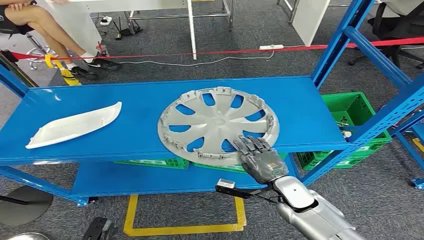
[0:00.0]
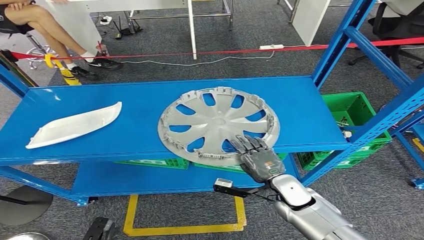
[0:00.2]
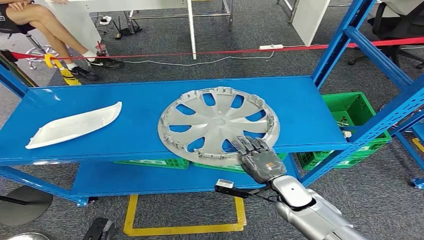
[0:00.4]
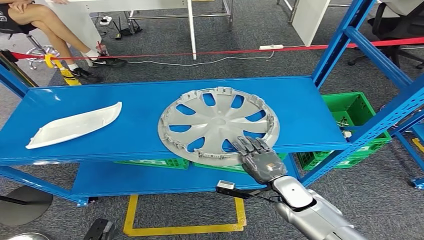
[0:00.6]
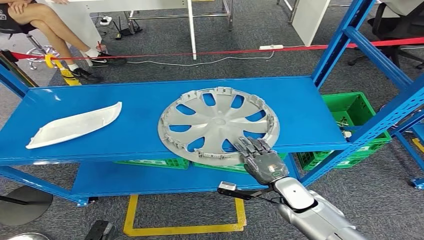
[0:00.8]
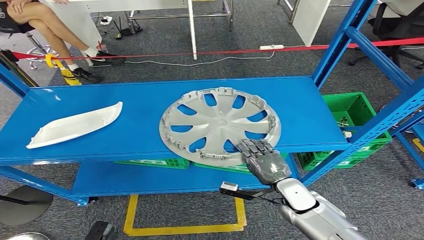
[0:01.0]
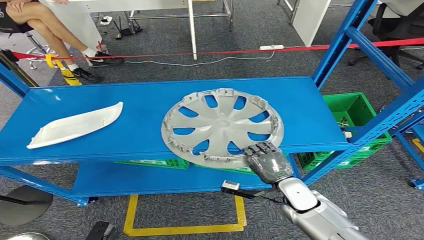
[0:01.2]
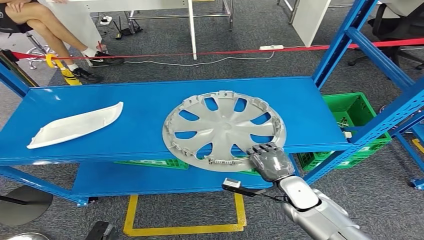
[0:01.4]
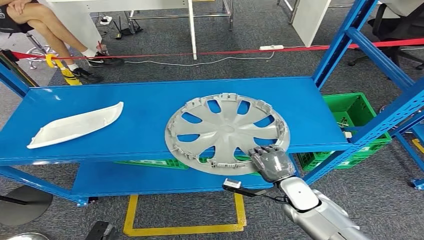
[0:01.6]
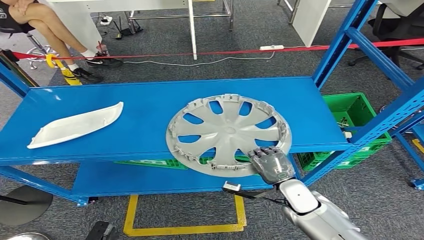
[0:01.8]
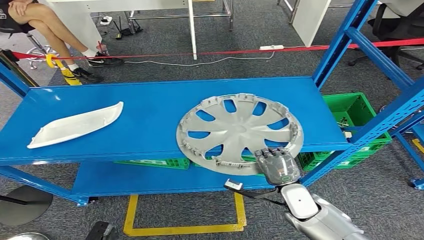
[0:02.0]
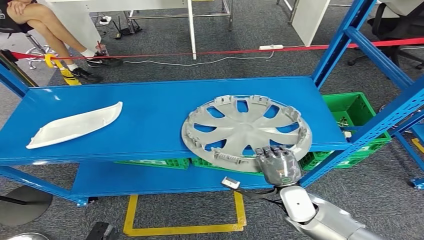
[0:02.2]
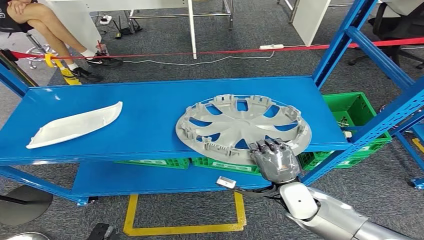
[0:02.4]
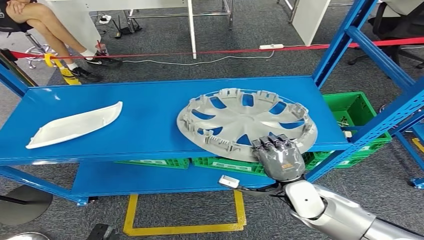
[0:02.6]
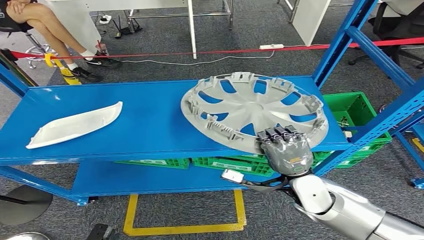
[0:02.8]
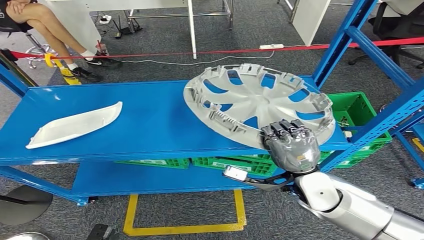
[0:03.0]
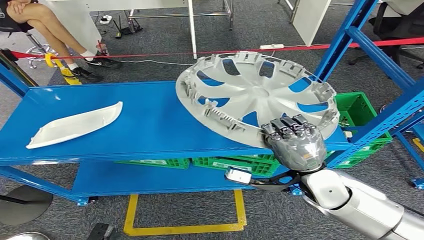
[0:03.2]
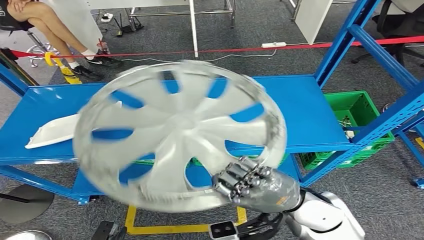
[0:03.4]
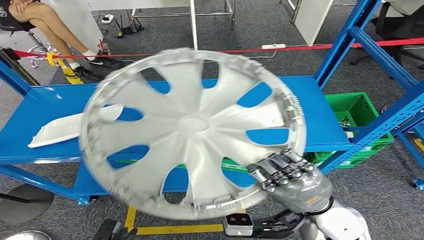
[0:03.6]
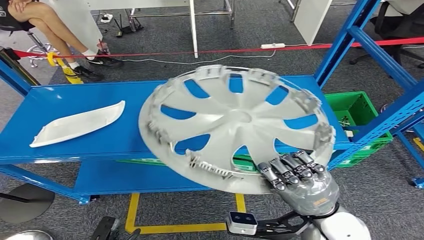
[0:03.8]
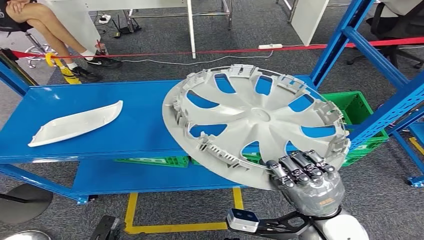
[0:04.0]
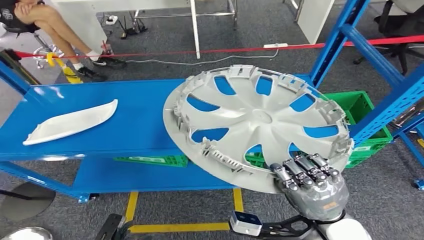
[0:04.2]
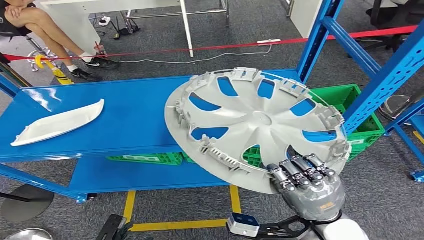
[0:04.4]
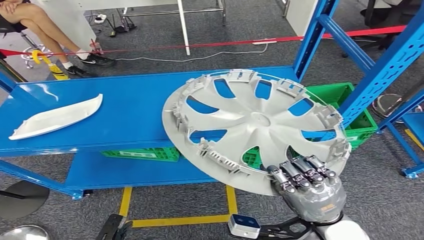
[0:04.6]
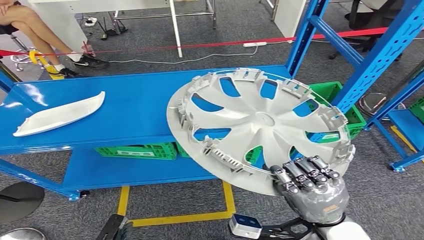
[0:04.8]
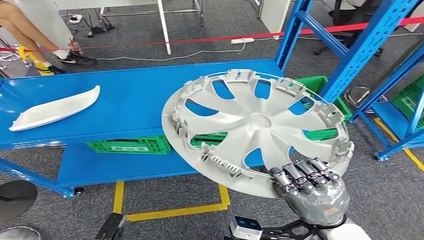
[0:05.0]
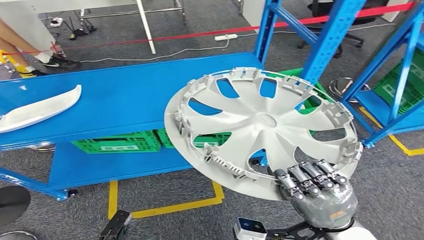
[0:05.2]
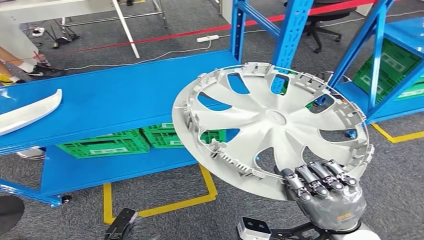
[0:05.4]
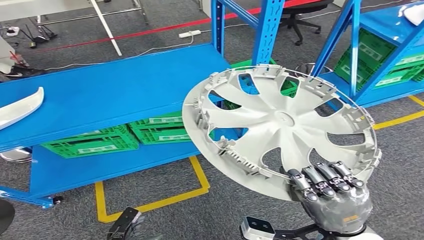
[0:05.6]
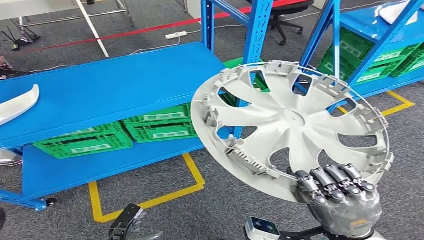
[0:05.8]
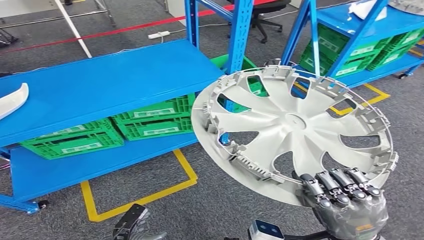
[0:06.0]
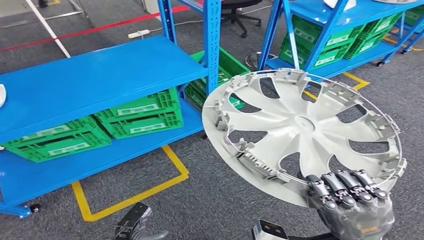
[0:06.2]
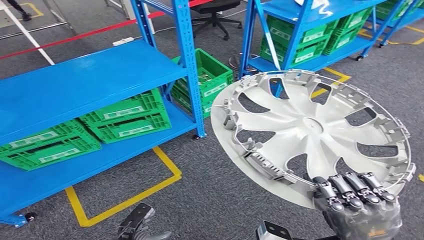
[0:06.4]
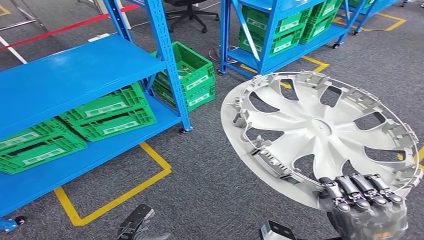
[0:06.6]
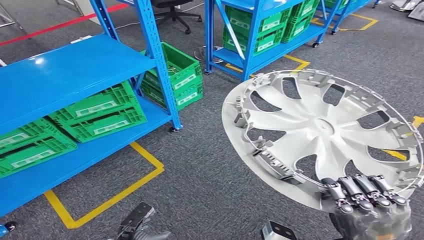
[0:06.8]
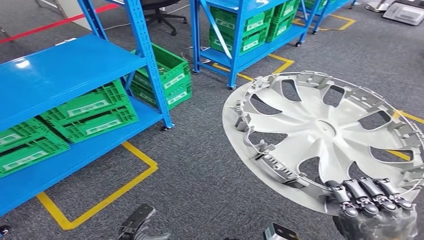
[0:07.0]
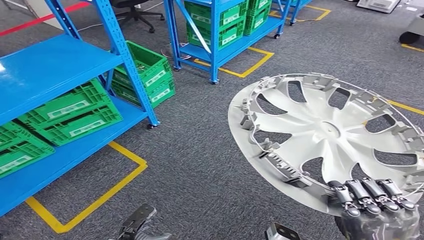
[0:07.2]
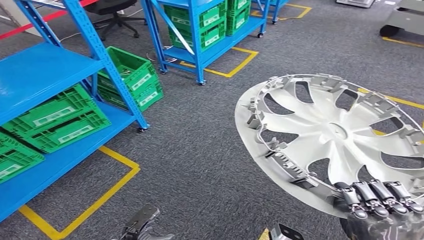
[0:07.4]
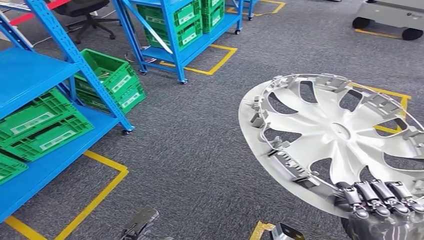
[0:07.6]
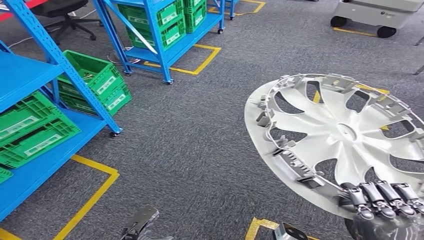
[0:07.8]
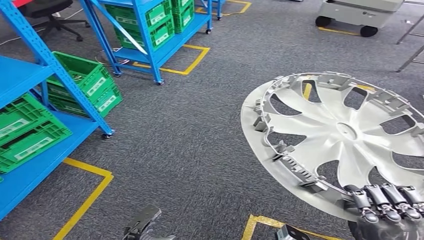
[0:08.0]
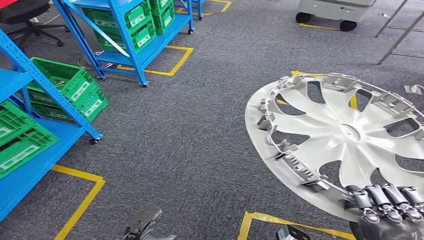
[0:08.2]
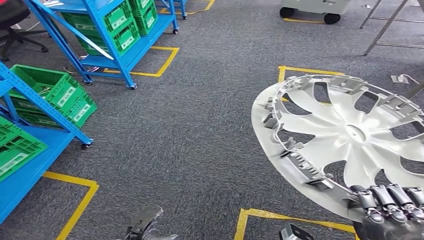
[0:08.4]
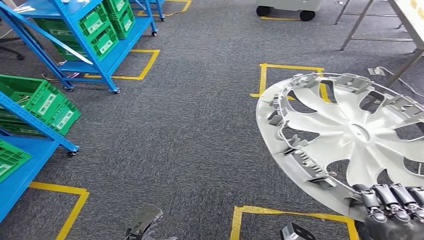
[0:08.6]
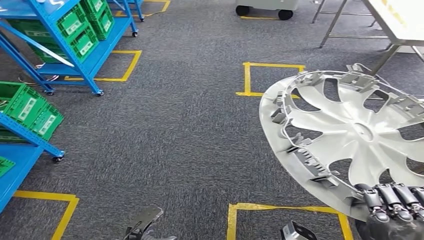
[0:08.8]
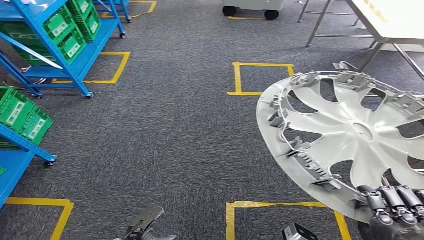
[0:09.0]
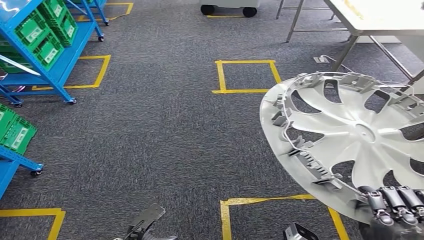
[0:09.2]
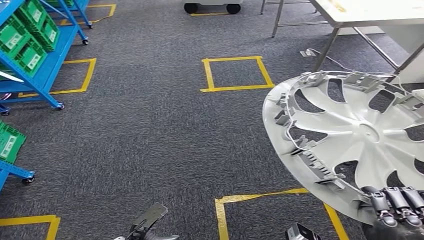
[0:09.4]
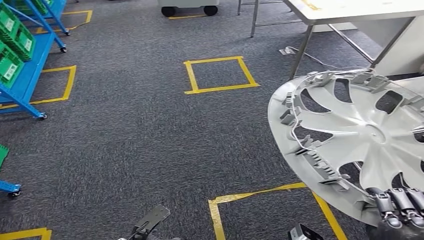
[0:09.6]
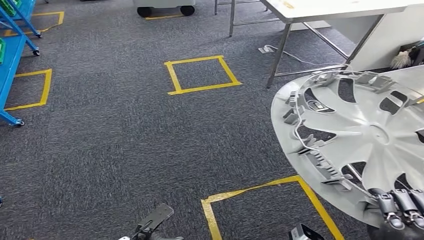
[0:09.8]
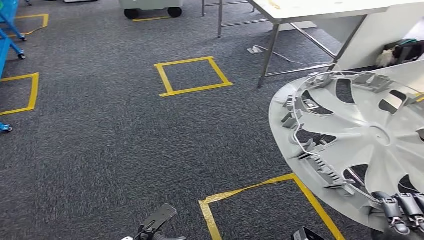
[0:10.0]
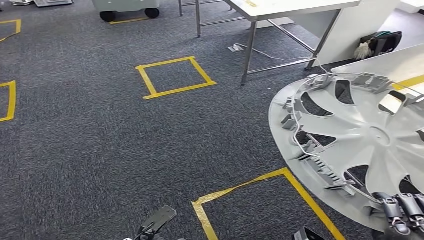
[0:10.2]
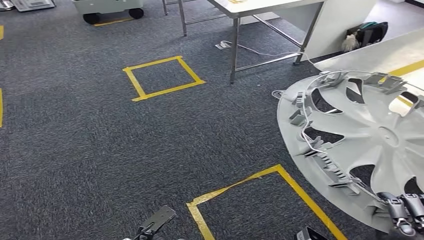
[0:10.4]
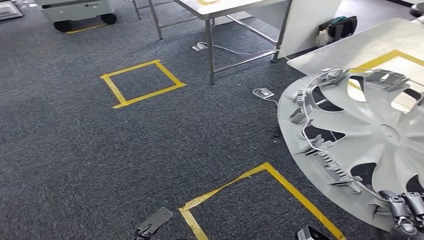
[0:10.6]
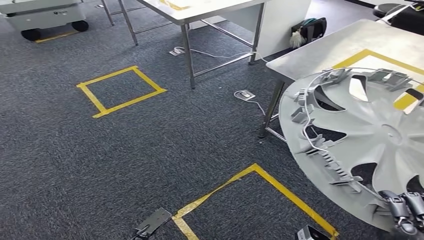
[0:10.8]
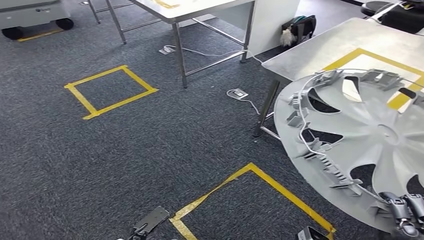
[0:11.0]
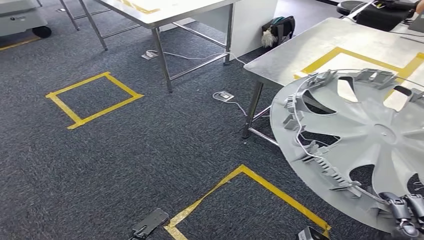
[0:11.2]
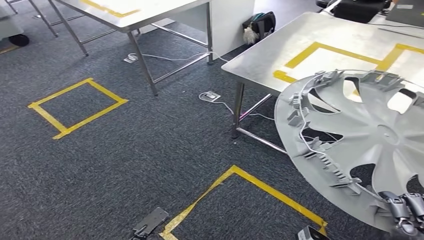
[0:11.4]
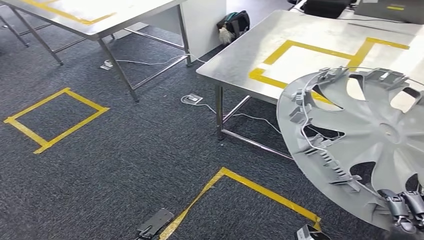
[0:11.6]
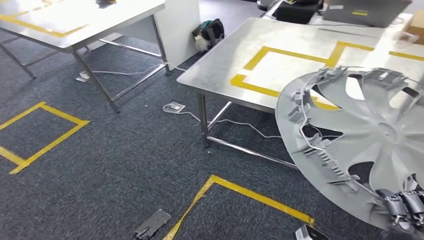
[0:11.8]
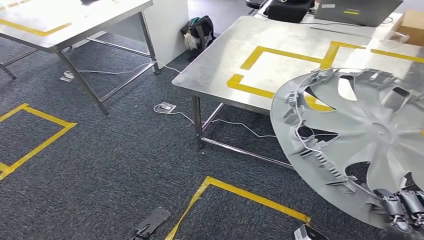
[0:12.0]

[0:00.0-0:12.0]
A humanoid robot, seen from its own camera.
Step, 0:00.0 to 0:03.4: Pick up the small parts from the shelf.

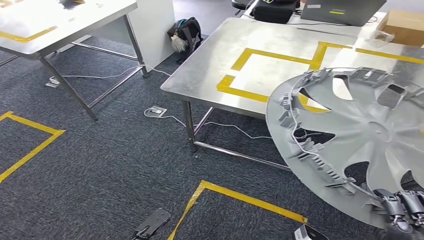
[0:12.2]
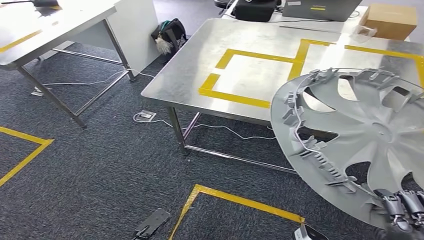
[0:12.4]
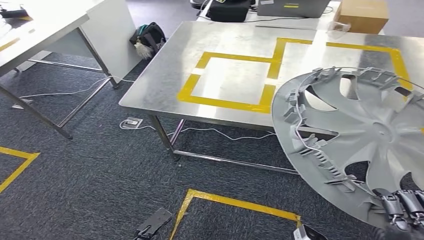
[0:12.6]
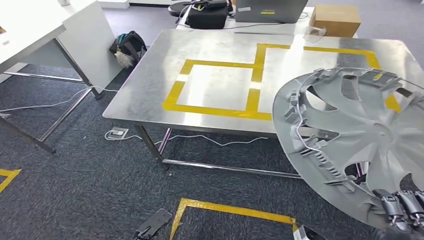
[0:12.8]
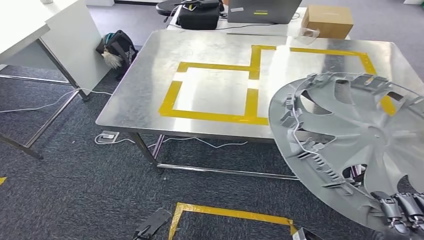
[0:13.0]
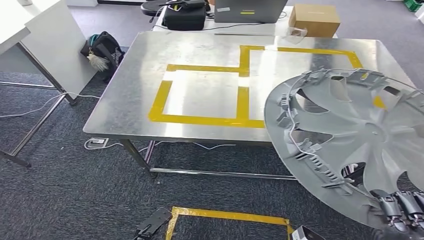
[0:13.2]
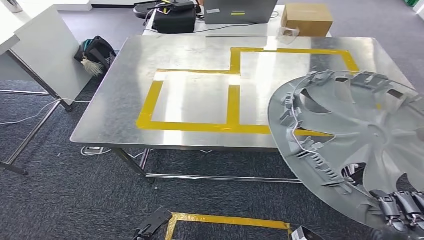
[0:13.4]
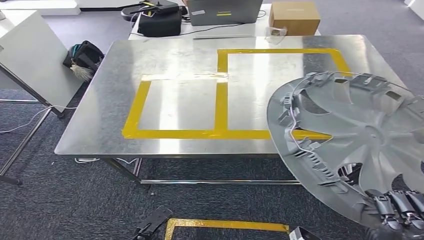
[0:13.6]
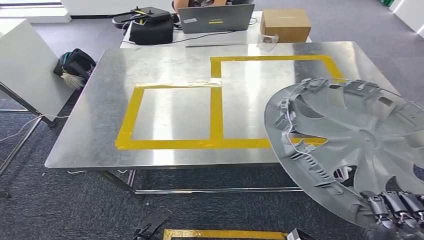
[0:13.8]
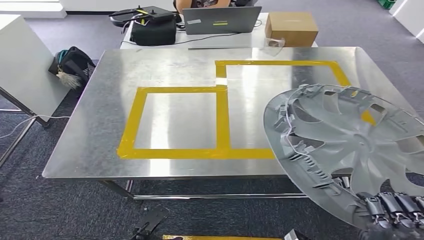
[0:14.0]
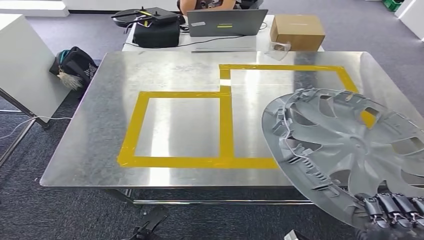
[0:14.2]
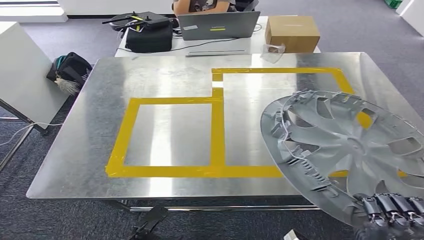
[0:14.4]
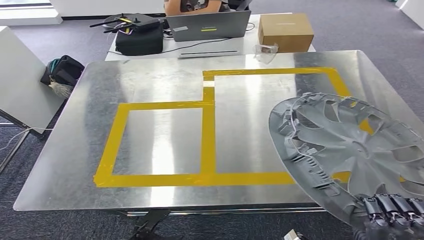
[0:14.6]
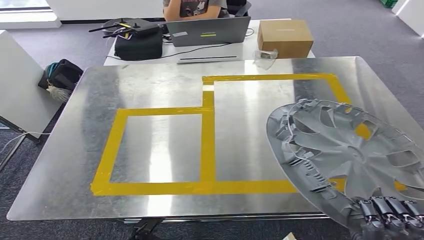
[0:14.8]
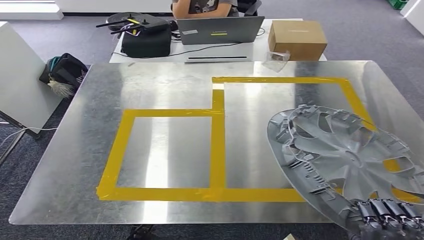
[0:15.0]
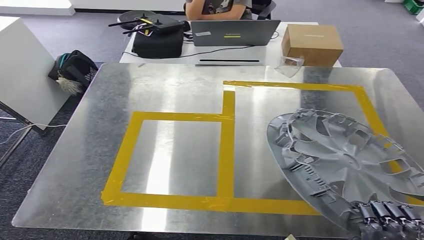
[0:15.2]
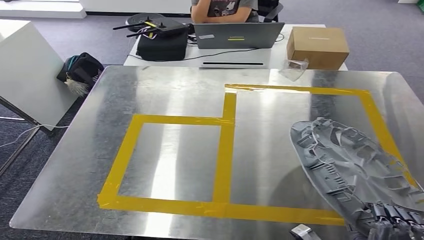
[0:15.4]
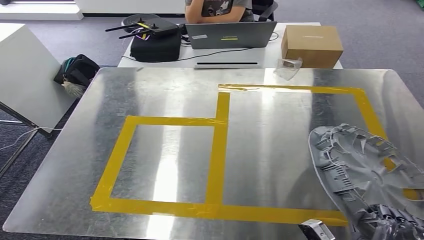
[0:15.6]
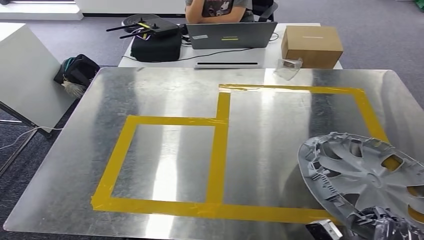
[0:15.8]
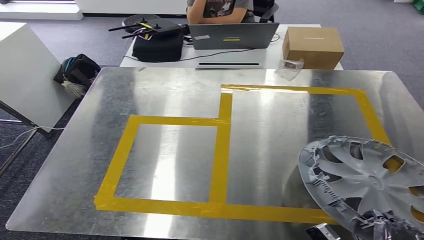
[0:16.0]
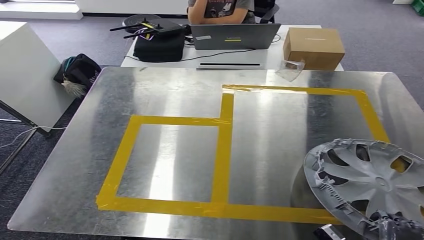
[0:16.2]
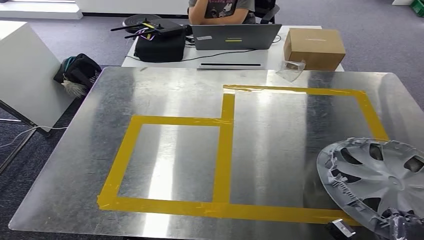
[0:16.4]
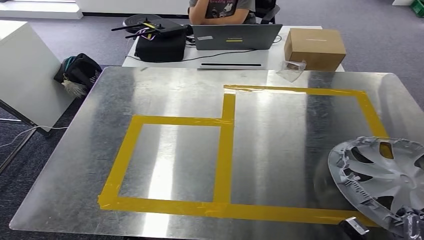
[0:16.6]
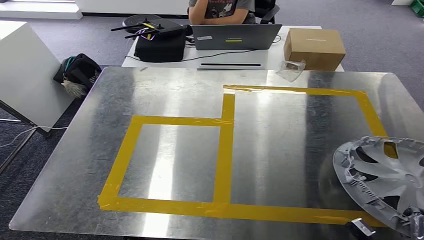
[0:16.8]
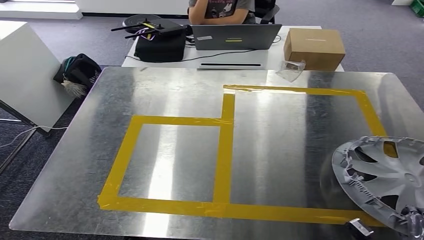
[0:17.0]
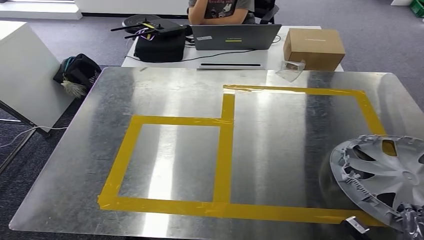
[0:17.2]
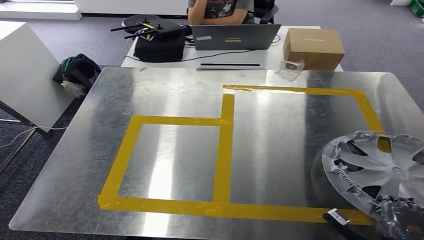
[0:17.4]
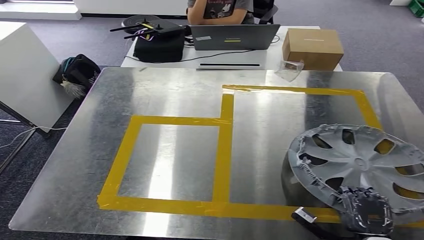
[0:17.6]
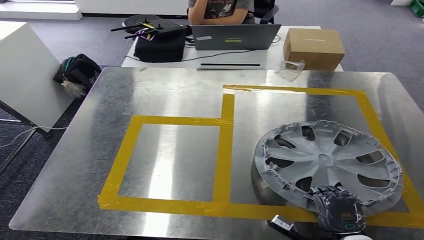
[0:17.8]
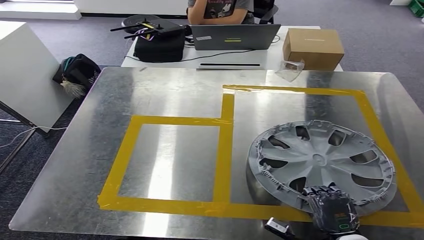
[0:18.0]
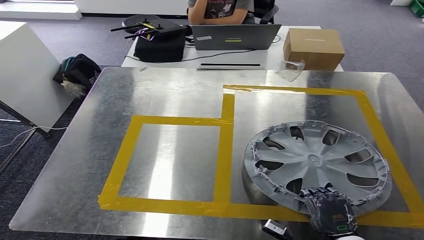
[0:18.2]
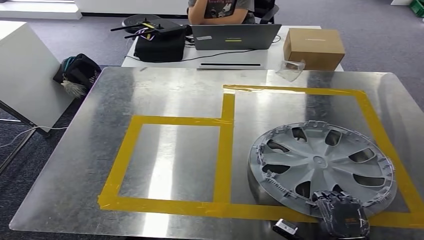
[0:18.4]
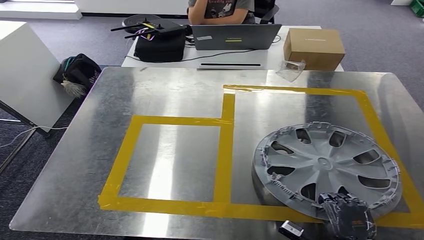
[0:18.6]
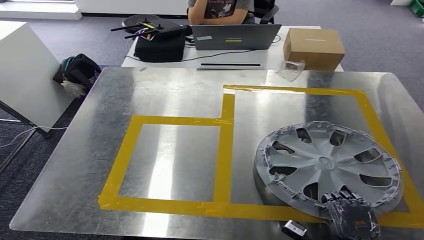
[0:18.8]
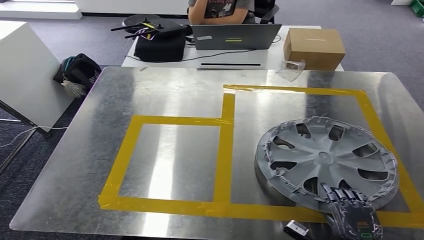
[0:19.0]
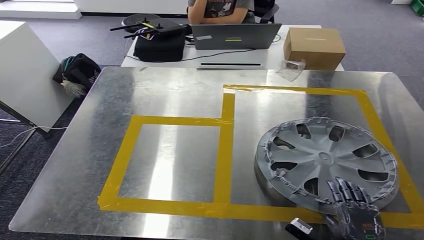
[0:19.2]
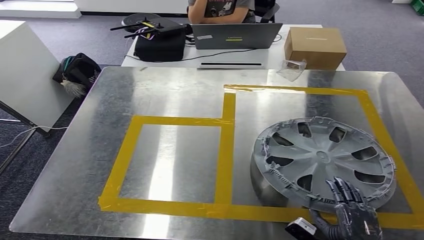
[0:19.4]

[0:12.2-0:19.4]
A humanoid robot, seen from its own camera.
Step, 0:12.2 to 0:14.6: Move the small parts to the workbench.
0:16.6 to 0:18.0: The right hand heads to the left and forward, covering about 10 cm.
